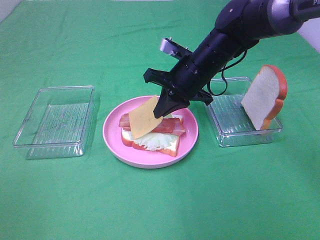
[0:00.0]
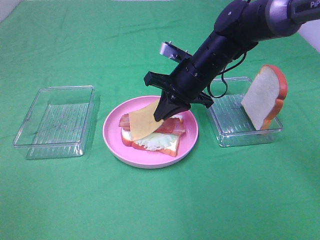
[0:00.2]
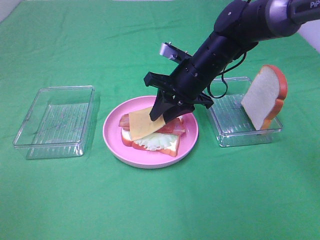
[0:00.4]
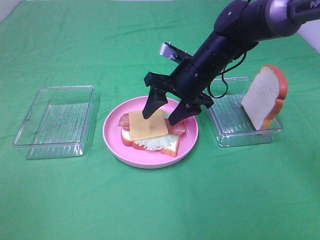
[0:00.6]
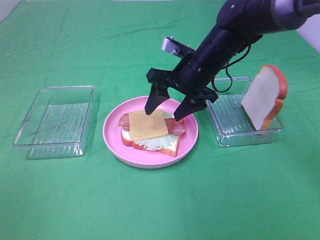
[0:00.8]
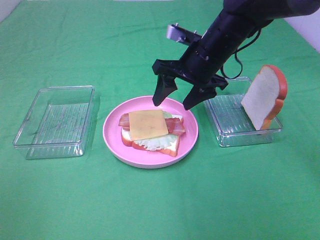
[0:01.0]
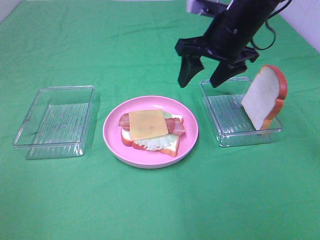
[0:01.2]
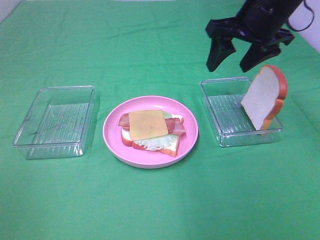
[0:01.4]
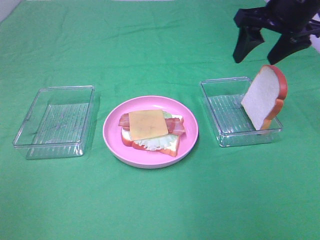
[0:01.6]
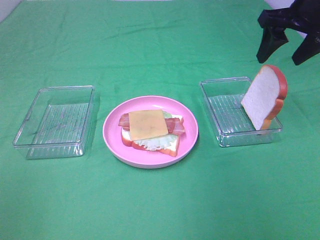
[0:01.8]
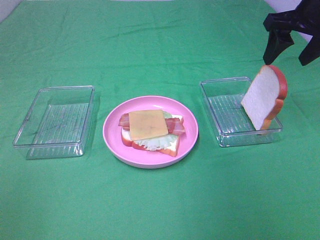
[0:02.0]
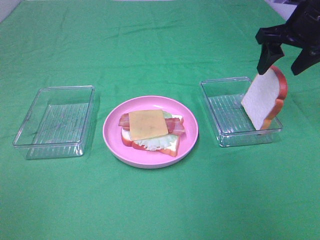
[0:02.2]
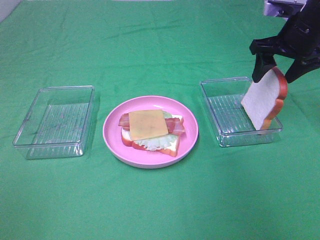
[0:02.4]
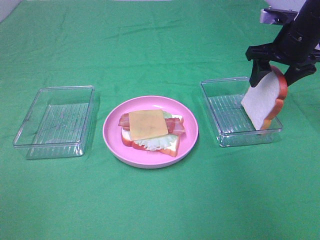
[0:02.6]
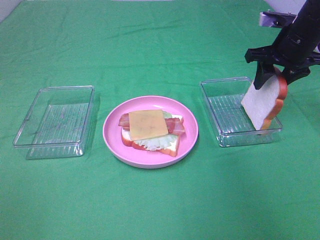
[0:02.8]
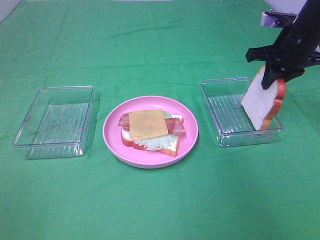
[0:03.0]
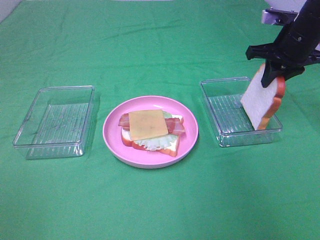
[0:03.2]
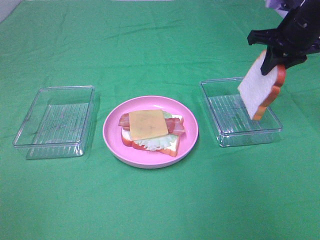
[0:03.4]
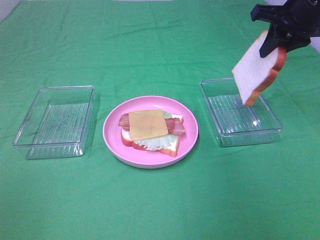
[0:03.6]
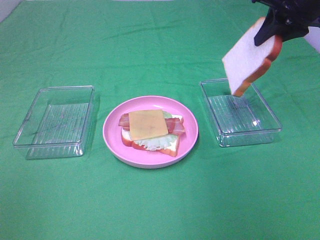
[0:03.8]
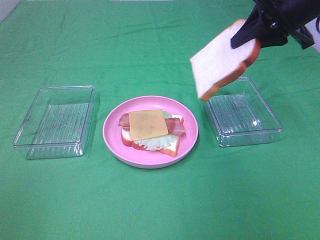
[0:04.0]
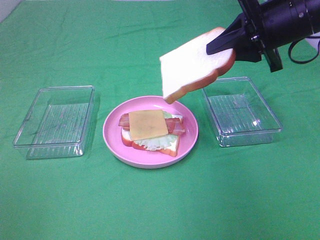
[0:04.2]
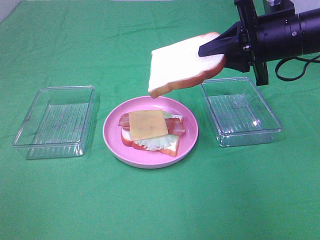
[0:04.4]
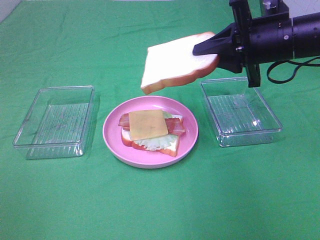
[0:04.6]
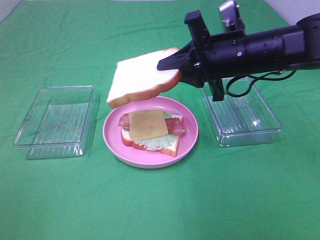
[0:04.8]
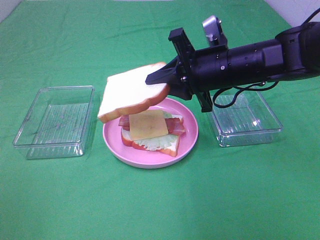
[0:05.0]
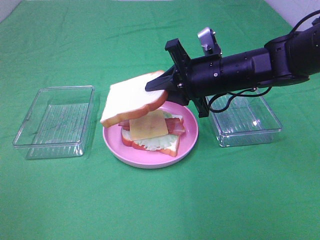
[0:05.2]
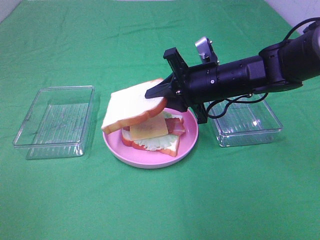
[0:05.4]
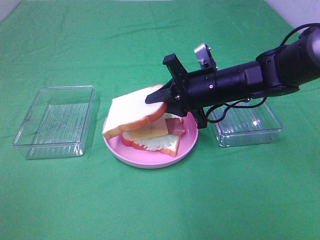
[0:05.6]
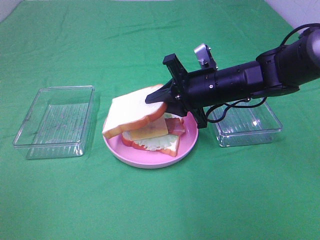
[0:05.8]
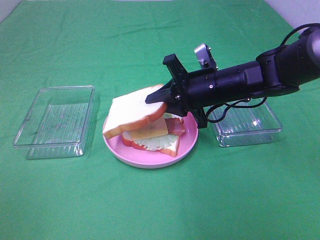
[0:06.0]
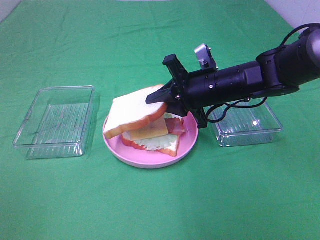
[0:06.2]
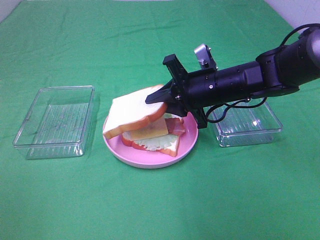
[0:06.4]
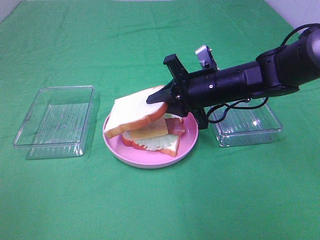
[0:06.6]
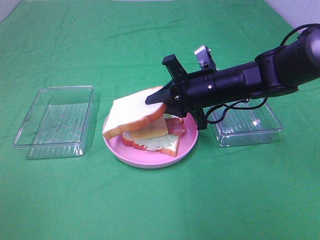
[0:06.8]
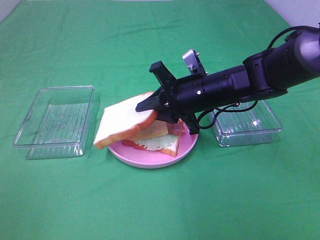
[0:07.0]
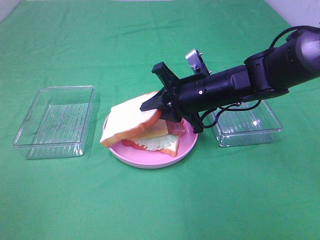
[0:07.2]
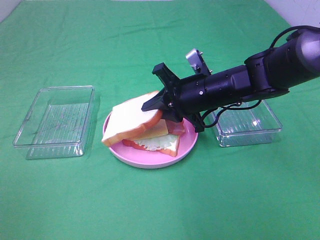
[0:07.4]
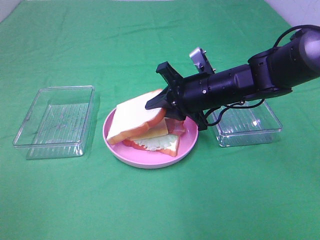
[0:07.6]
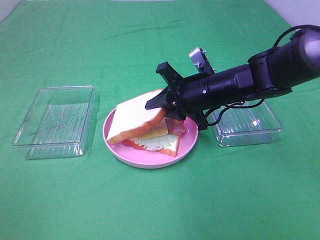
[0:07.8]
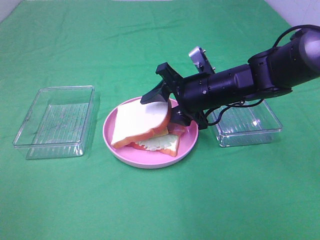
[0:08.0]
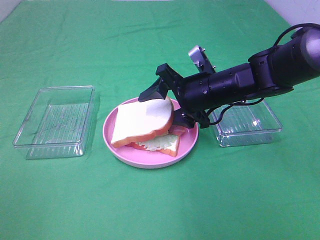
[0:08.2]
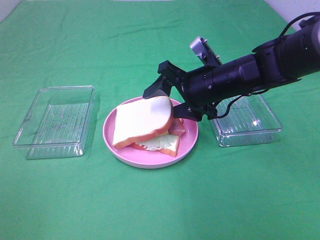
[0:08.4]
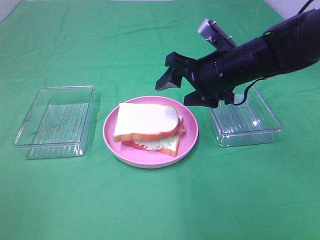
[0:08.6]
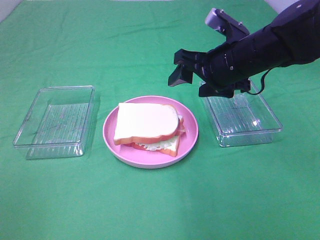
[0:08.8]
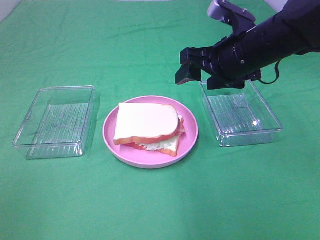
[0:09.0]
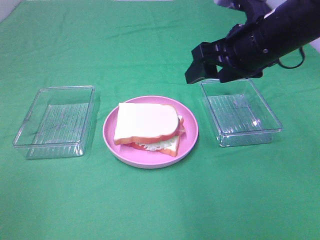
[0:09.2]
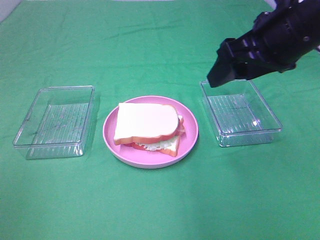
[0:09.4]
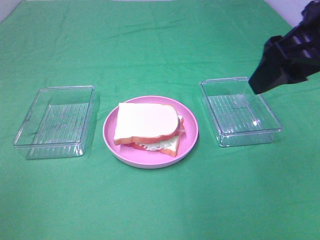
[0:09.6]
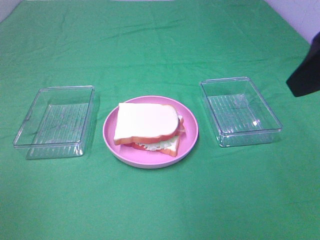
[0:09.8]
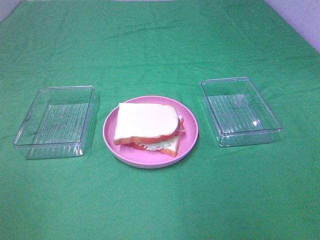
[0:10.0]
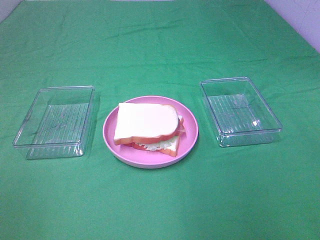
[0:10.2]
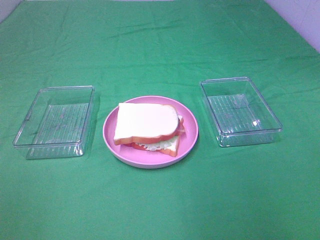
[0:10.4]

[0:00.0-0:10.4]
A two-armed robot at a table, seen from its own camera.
Task of the whole recording: Make sandwiches.
Step, 0:01.0 to 0:03.0: Right hand:grab the bread slice.
Step, 0:03.2 to 0:08.6: Right hand:place the bread slice on the cheese slice.
0:00.0 to 0:01.4: The right gripper shifts roughly 15 cm upward and to the right, and opens its fingers.
0:01.4 to 0:03.0: The right gripper travels to the right and downward by some 10 cm, and closes up.
0:03.0 to 0:04.4: The right gripper moves backward and to the left, roughly 10 cm, and goes upward and returns, approximately 10 cm each way.
0:04.4 to 0:06.0: The right gripper heads downward and to the left, covering approximately 15 cm.
0:06.0 to 0:07.4: The grippers move only a little.
0:07.4 to 0:09.0: The right gripper goes about 10 cm upward, and opens its fingers.
0:09.0 to 0:10.4: The right gripper travels backward and to the right by roughly 30 cm.

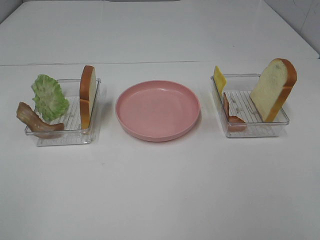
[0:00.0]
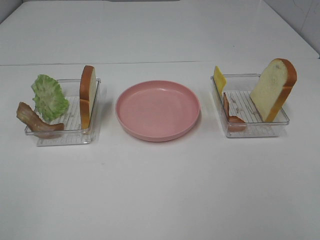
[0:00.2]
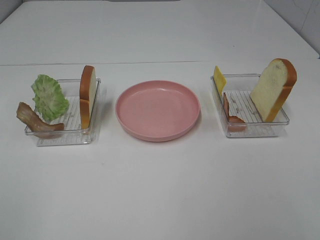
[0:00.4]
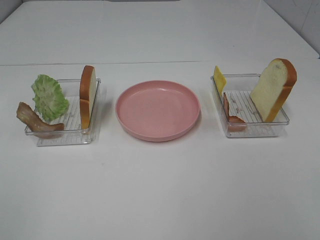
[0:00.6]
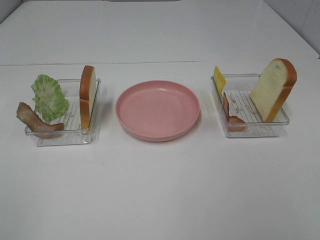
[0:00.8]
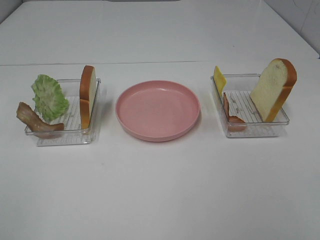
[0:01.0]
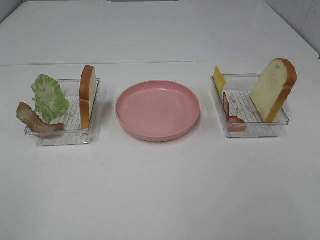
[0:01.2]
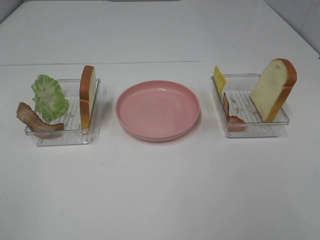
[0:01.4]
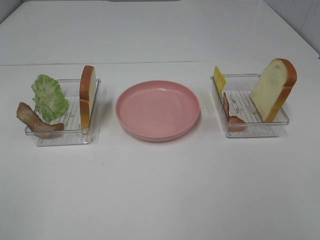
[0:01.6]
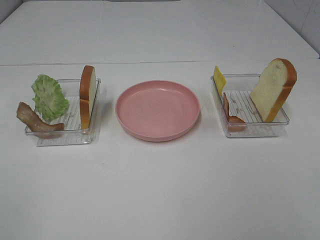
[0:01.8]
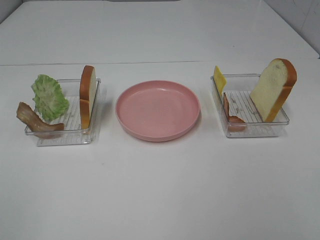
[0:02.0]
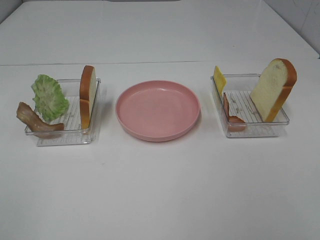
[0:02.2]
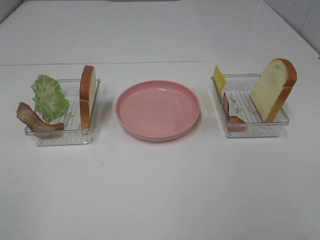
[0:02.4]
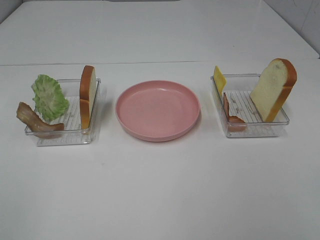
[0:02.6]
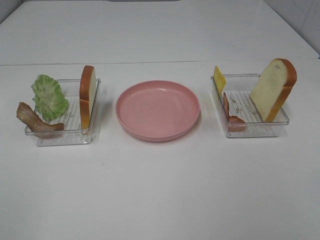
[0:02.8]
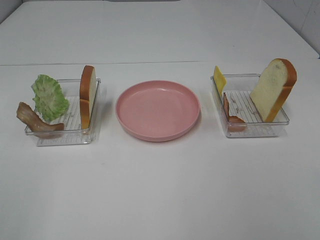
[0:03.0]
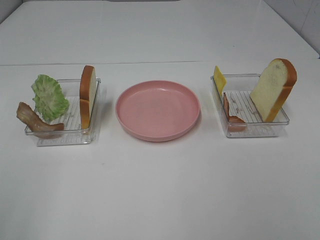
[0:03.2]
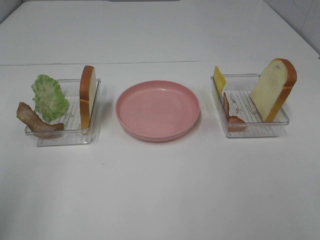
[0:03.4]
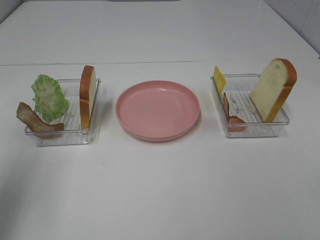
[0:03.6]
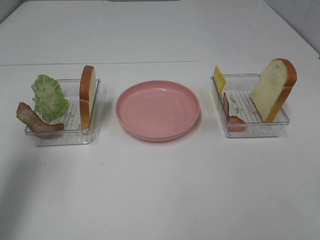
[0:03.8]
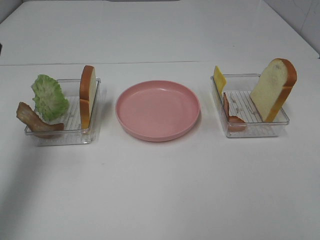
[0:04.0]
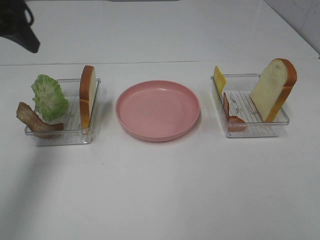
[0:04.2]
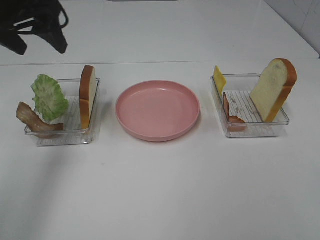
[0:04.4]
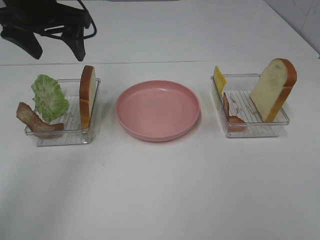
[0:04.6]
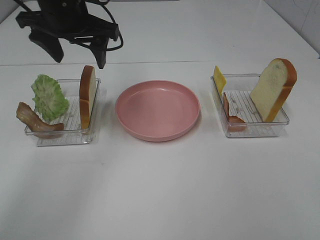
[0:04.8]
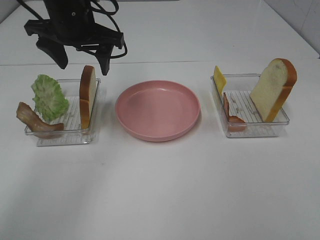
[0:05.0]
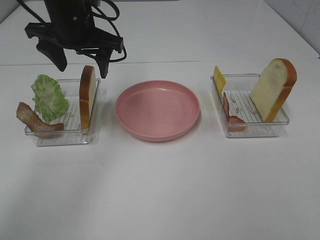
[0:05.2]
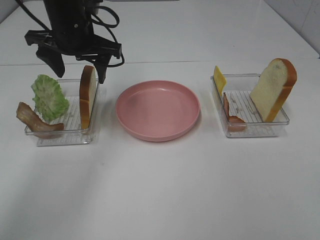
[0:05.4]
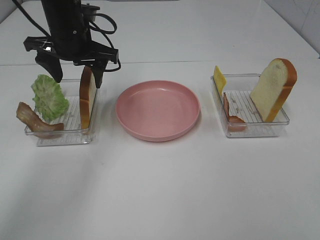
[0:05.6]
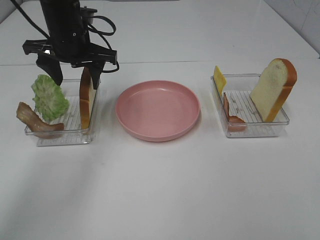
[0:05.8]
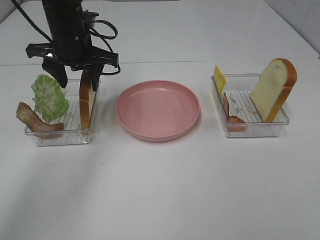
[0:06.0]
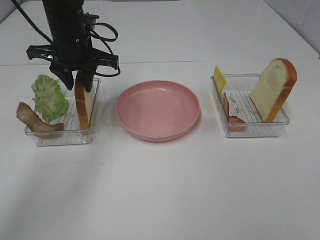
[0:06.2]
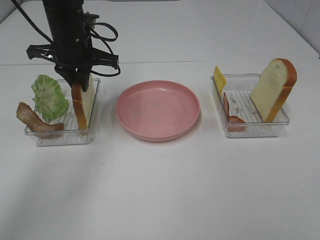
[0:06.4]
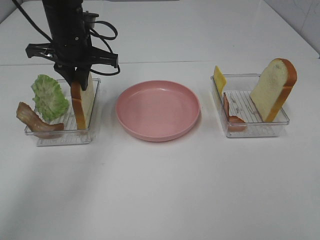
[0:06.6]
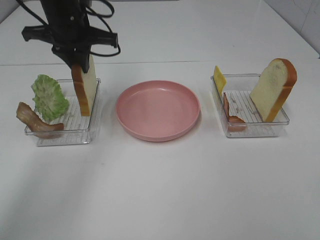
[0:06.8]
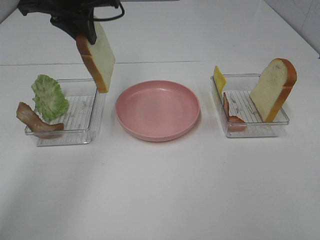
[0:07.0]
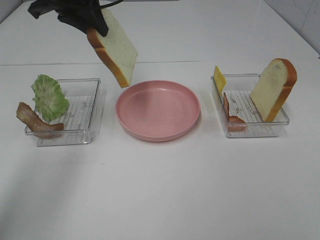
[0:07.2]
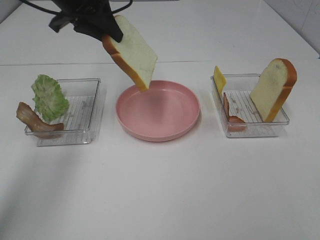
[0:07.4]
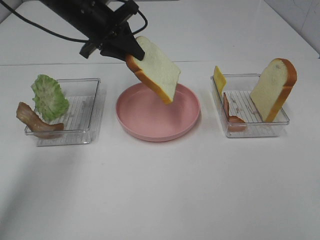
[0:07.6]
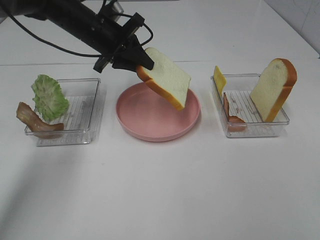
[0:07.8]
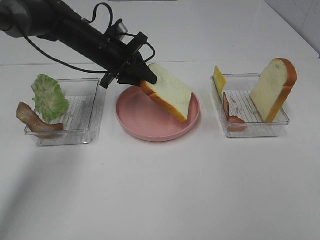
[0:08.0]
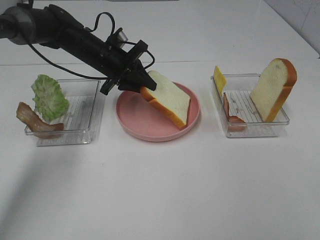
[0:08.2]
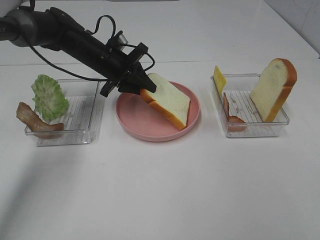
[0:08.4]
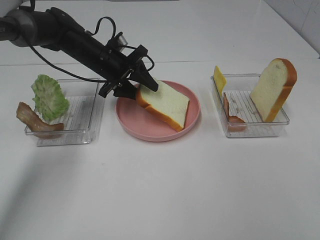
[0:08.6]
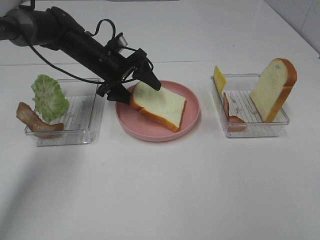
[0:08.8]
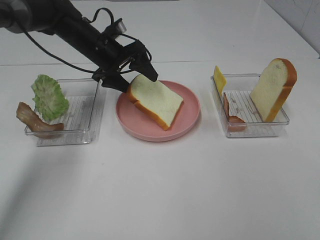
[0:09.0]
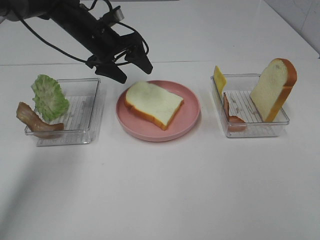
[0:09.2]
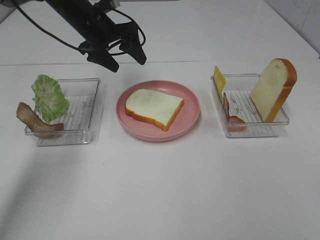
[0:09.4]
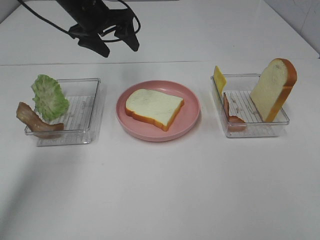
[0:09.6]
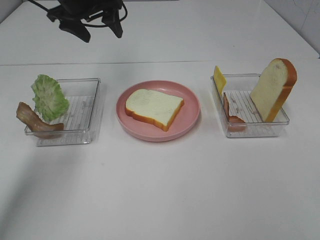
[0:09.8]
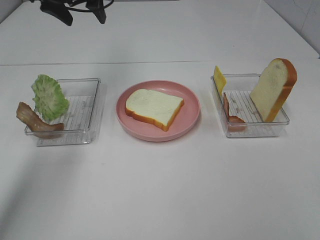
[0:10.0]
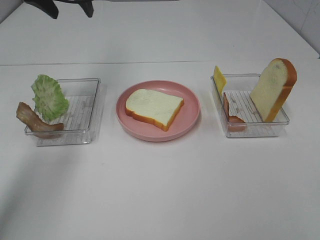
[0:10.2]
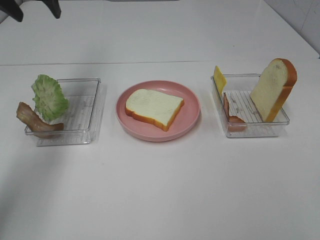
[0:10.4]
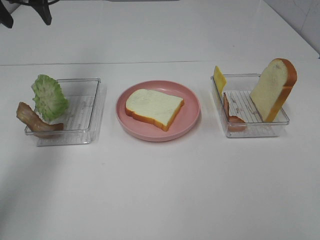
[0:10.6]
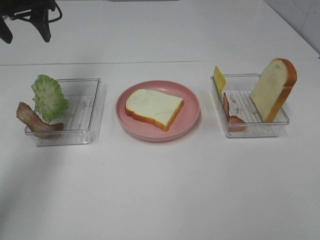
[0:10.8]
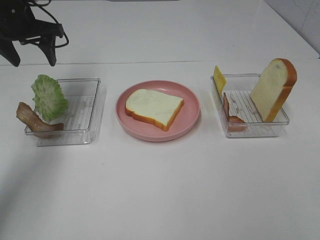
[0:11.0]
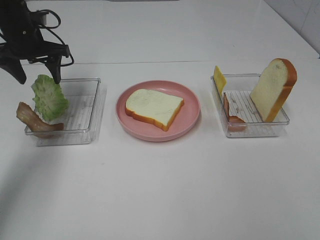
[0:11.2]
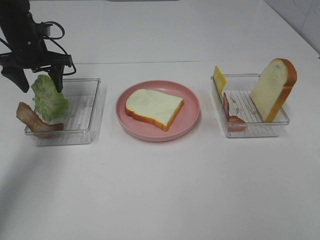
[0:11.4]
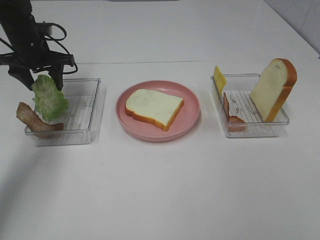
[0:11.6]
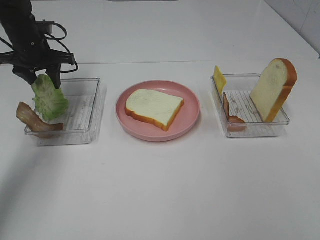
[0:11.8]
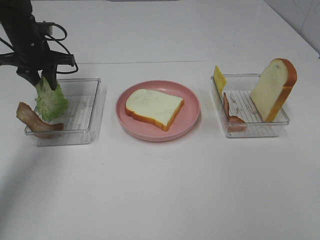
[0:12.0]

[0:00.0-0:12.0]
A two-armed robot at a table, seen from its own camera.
Task of the whole recording: Make sandwiches.
Step, 0:00.0 to 0:06.2: Left hand:grab the bread slice.
Step, 0:06.4 to 0:09.4: Left hand:place the bread slice on the plate.
0:00.0 to 0:01.6: Both grippers stay about where they are.
0:03.0 to 0:04.4: The left gripper moves forward, some 35 cm.
0:04.4 to 0:06.0: The left gripper shifts some 15 cm downward, to the right and forward.
0:06.0 to 0:07.6: The left gripper reaches roughly 10 cm upward, then returns, and closes its fingers.
0:07.6 to 0:09.0: The left gripper moves downward, some 5 cm, and opens its fingers.
0:09.0 to 0:10.4: The left gripper travels upward and to the left by approximately 20 cm.
0:10.4 to 0:12.0: The left gripper moves downward, roughly 15 cm, and closes.
